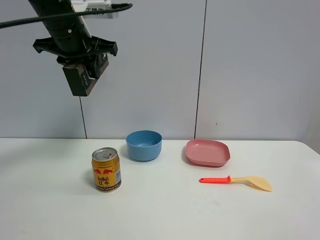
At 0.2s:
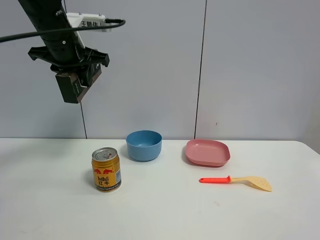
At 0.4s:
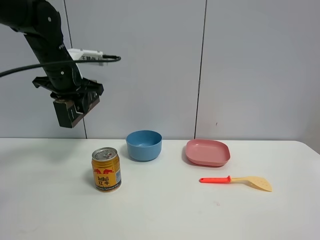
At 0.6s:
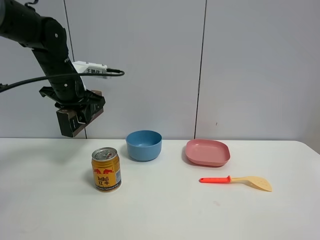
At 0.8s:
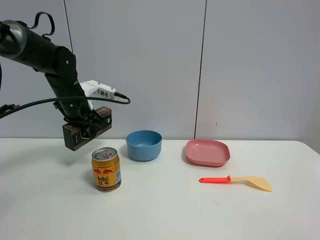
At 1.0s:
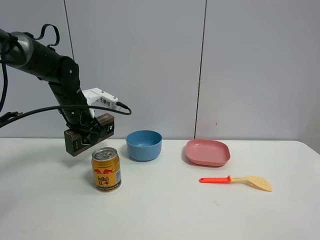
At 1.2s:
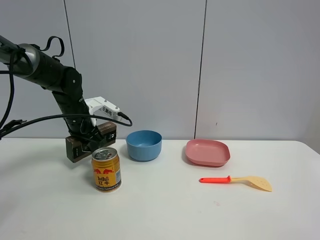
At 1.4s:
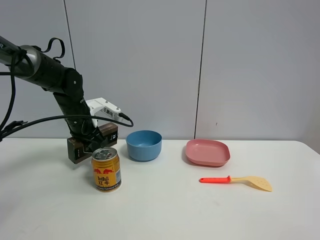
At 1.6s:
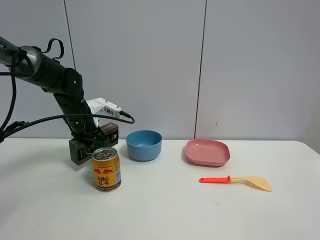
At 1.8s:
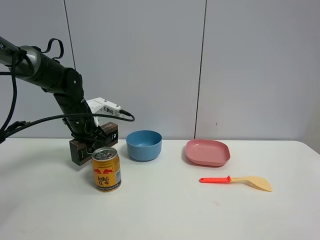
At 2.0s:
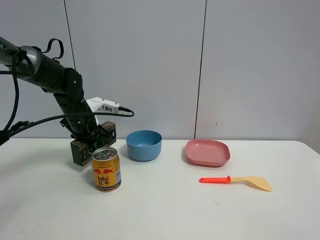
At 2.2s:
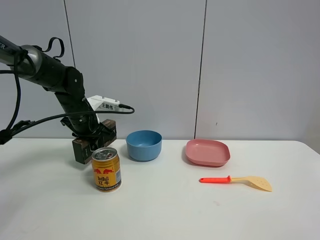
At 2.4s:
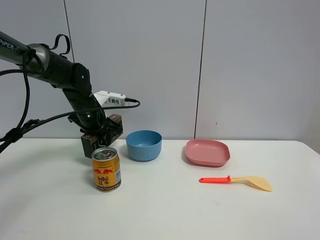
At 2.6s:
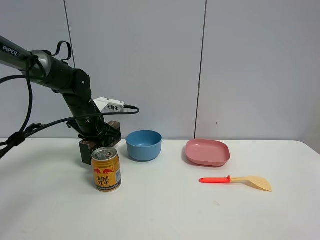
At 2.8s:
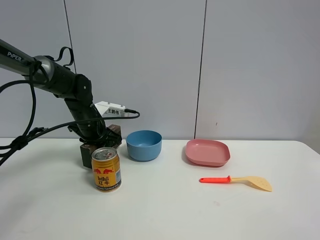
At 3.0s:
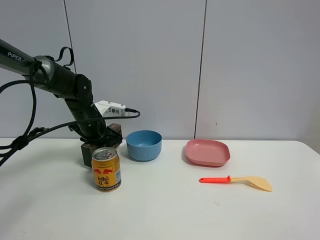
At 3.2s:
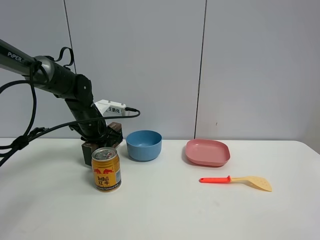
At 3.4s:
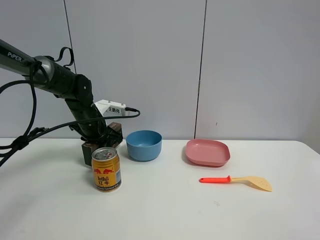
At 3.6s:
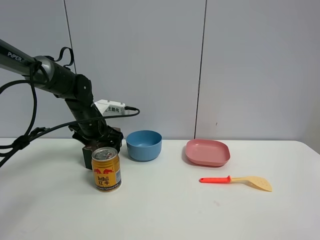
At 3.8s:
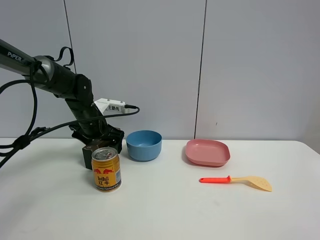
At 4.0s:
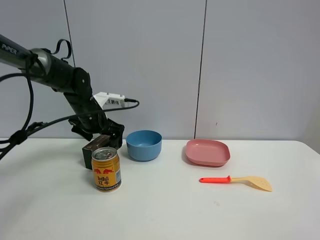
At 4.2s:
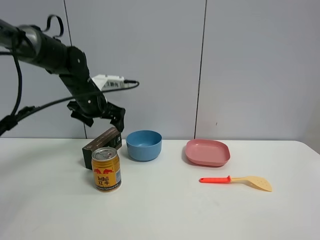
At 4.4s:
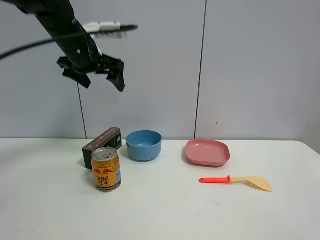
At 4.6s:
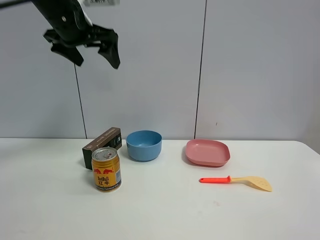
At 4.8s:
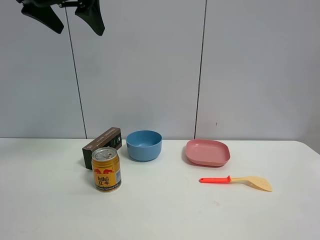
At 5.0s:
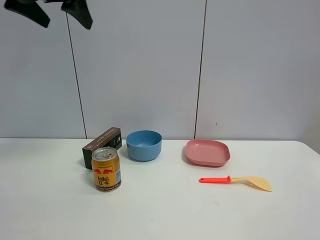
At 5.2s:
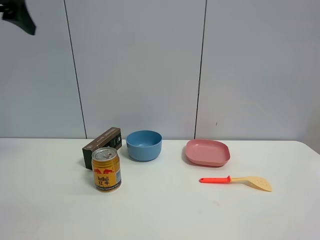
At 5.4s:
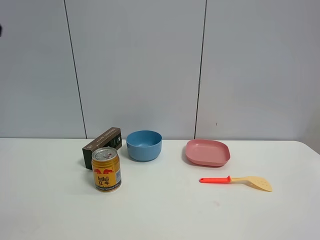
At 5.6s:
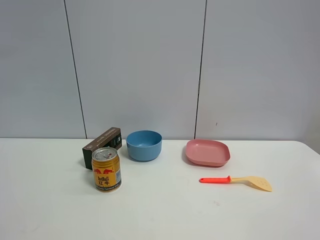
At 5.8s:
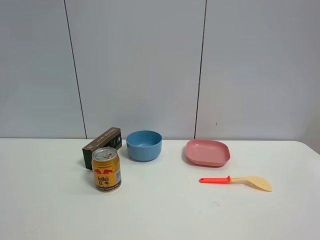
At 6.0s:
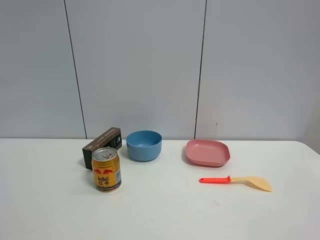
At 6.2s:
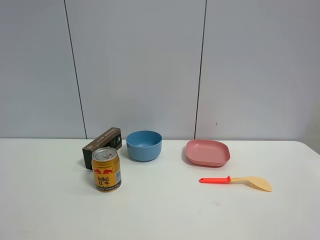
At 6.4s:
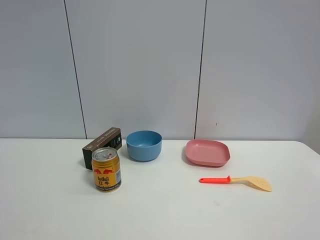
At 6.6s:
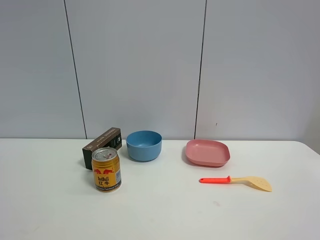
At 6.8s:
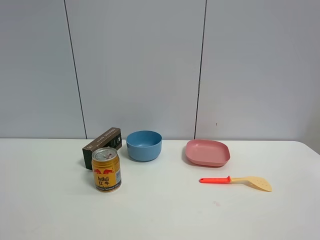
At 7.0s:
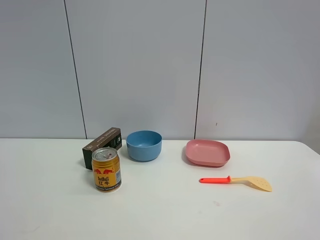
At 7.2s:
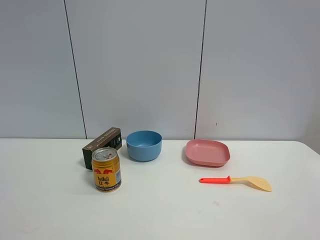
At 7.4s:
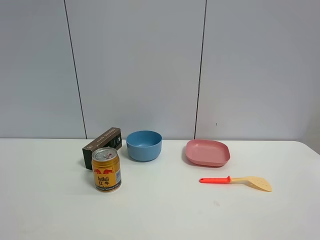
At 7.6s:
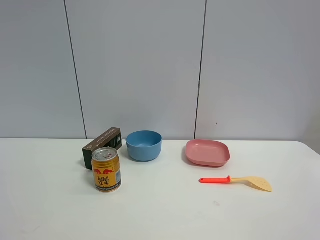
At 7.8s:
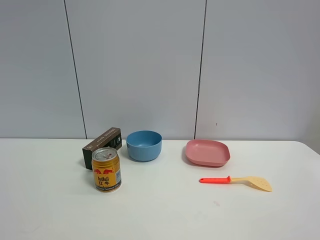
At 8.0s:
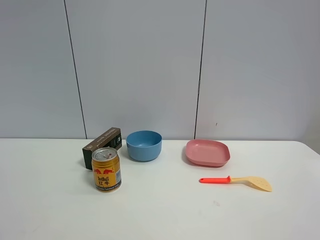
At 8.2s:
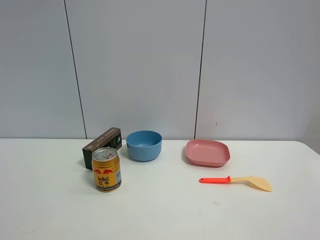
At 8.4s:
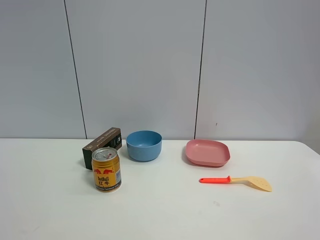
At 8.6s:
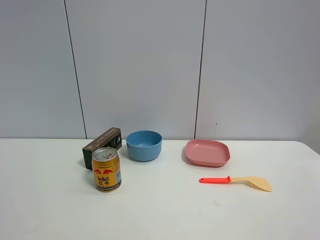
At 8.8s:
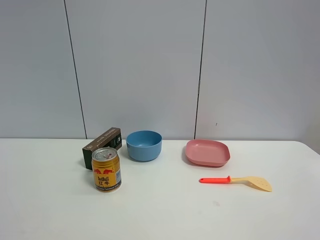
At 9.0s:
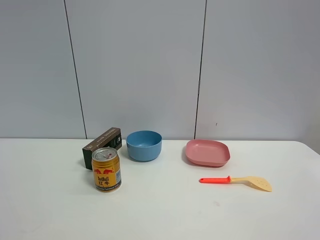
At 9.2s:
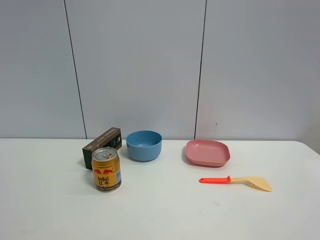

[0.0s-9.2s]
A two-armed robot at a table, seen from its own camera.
Task of the whole recording: the gripper move the object.
Step, 0.0s to 3.8s: Place the Luckin Coffee box on the table with the left gripper.
0.0s to 1.6s: The left gripper shifts approximately 20 cm downward.
1.6s to 3.0s: The grippers move only a little.
3.0s to 4.6s: The left gripper shifts roughly 25 cm upward, and opens its fingers.
4.6s to 6.2s: The left gripper heads backward and to the left, covering roughly 35 cm.
7.6s to 9.2s: Both grippers stay about where they are.

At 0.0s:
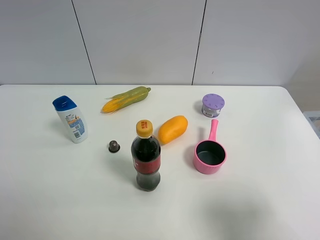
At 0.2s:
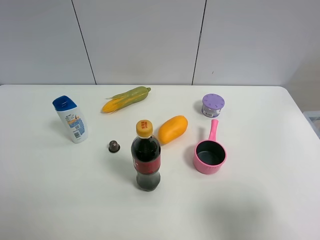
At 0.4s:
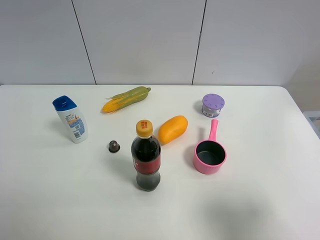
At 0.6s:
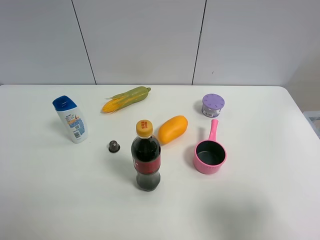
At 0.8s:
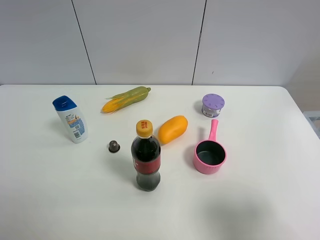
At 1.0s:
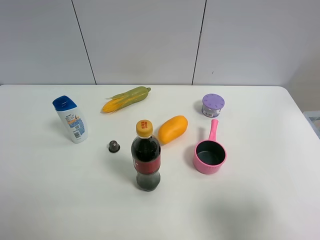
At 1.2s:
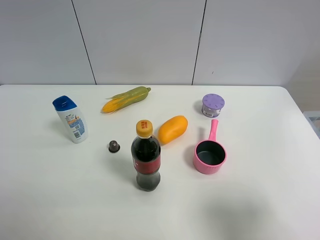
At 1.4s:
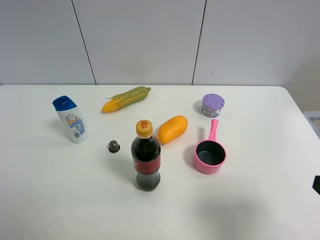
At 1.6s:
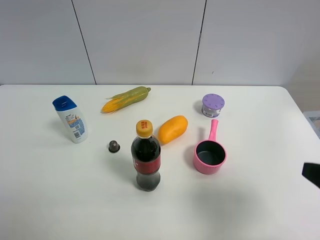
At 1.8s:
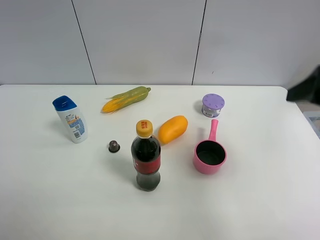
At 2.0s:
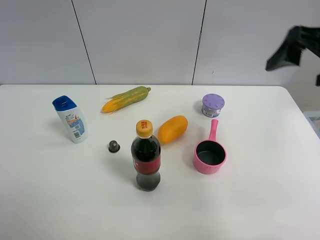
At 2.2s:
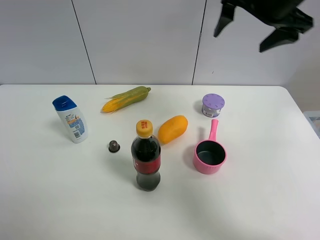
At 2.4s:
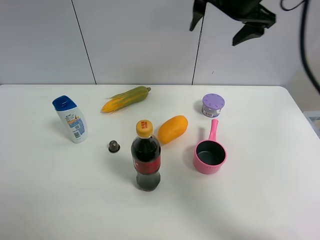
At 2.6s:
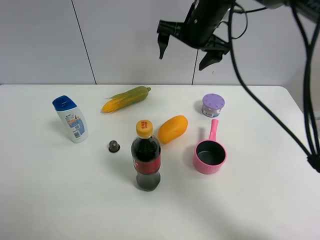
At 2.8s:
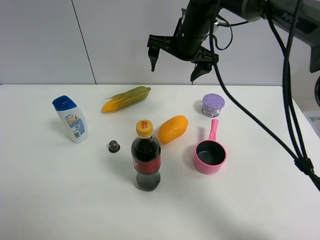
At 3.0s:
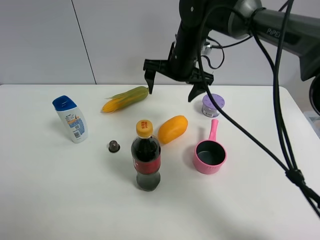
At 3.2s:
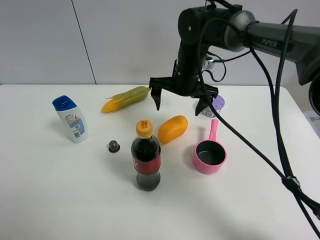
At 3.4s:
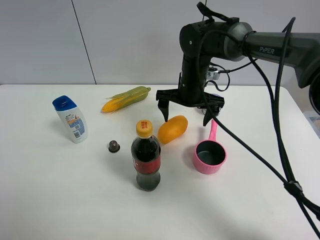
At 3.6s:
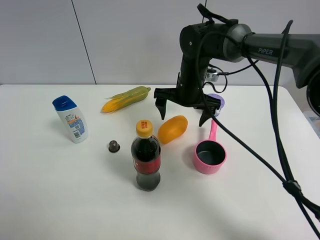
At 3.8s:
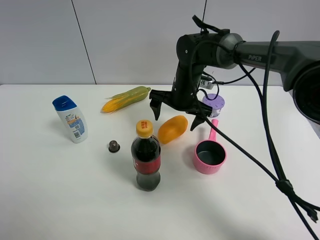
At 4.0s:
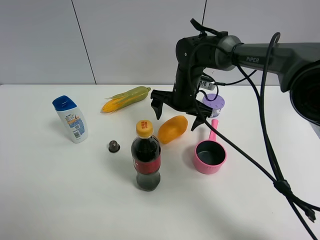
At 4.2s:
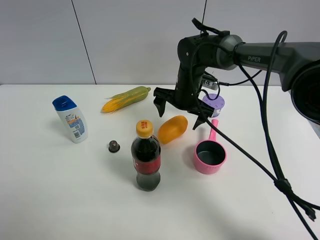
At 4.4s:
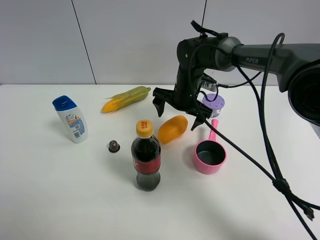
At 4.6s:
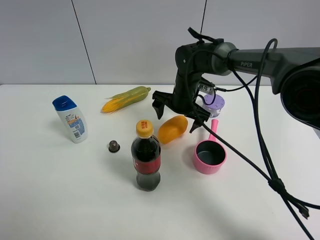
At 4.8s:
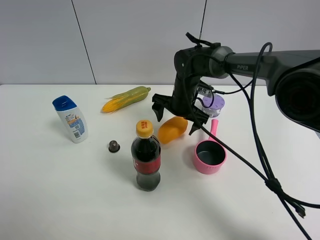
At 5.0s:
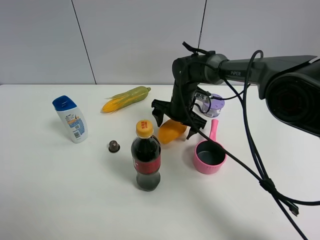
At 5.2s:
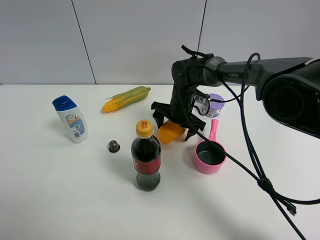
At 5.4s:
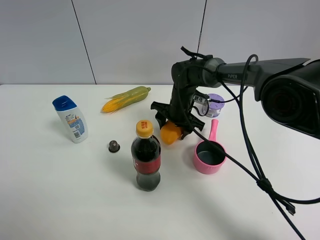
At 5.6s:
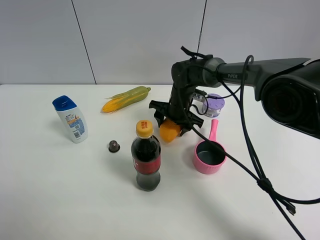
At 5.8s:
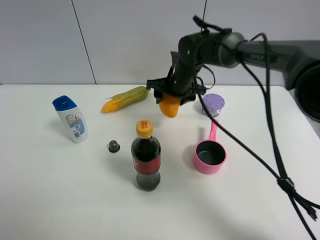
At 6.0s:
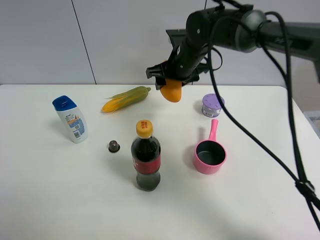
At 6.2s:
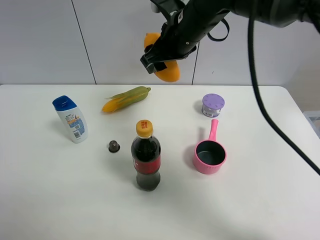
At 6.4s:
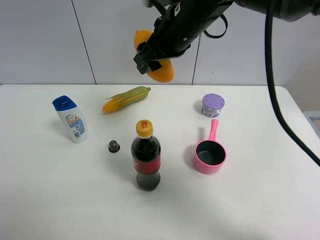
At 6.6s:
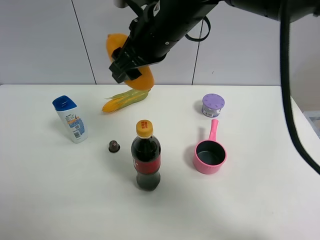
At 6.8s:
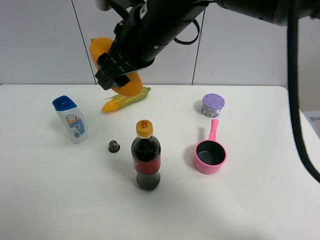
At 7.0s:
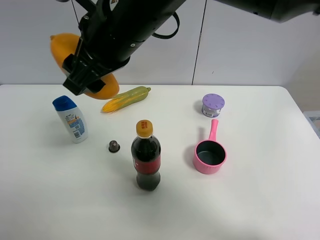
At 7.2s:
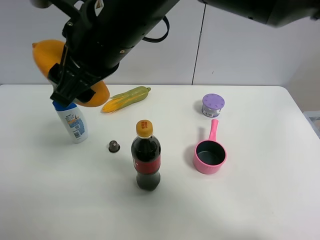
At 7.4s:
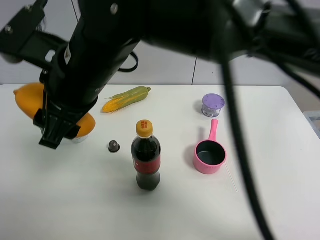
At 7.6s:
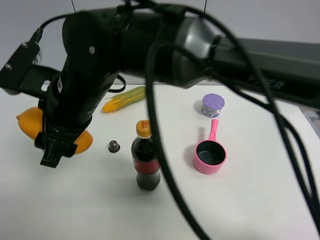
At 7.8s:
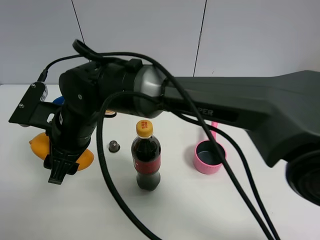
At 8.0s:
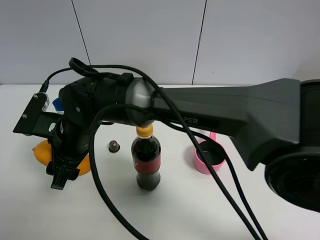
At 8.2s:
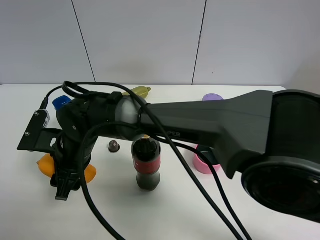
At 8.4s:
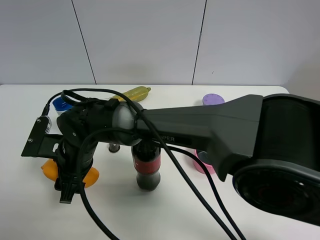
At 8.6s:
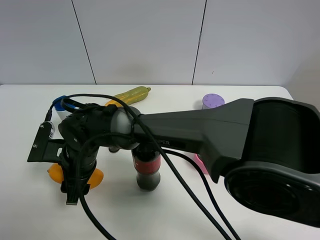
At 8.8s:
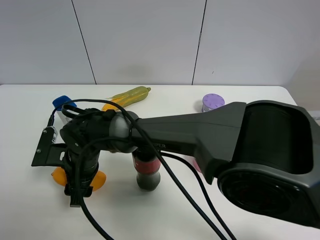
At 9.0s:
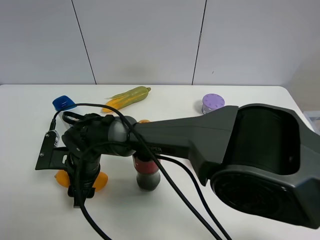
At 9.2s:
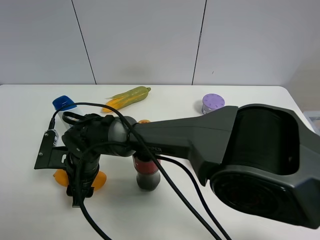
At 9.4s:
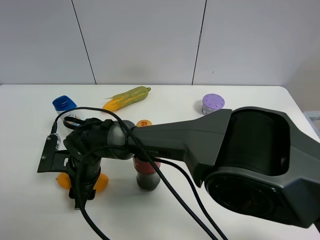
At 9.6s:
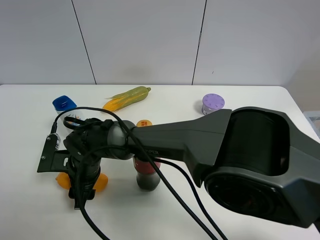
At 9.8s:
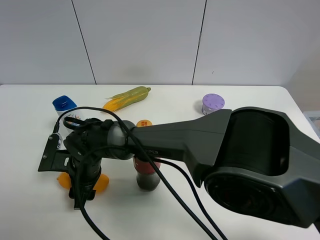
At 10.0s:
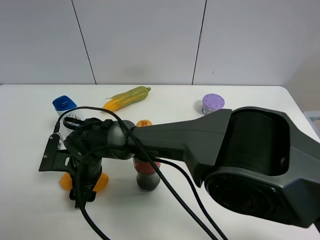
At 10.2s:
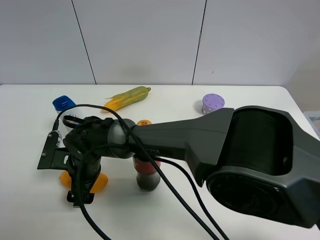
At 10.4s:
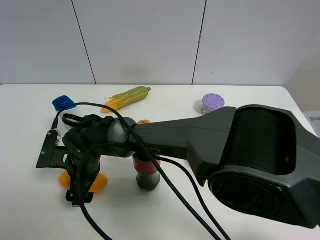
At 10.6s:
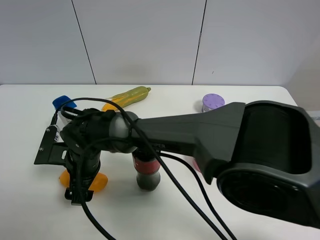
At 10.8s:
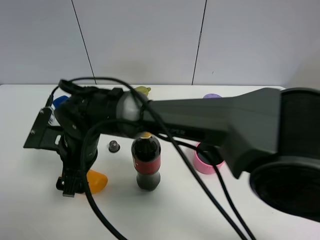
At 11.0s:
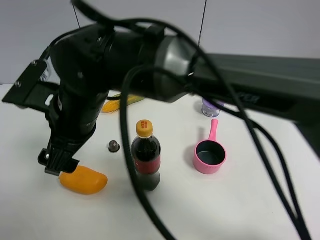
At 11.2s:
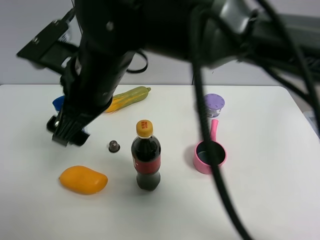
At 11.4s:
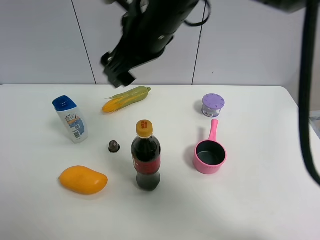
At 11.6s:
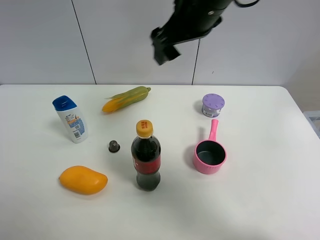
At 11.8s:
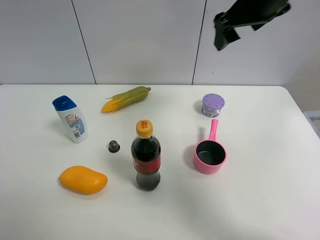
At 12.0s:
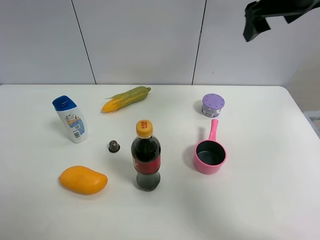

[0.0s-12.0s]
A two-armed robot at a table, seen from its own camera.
Task of the whole recording: the gripper move the object.
Step, 0.0s to 5.2s: Grasp the mango with the right gripper.
Step, 5.4s to 10.4s: Place the mango on the table with the right gripper.
0.0s to 1.6s: The right gripper is displaced forward by roughly 5 cm.
1.6s to 3.0s: The right gripper travels forward and to the left by about 40 cm.
3.0s to 4.4s: The right gripper moves downward, some 10 cm.
4.4s to 6.0s: The right gripper shifts approximately 10 cm upward, and closes.
6.0s to 7.6s: The right gripper goes some 25 cm backward and to the left.
7.6s to 9.0s: The right gripper heads downward, covering some 15 cm.
9.0s to 10.4s: The right gripper opens.
10.4s to 12.0s: The right gripper moves to the right and upward, some 50 cm.

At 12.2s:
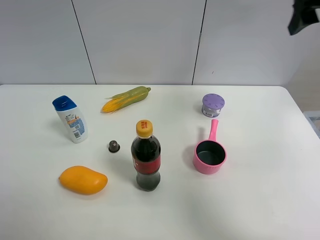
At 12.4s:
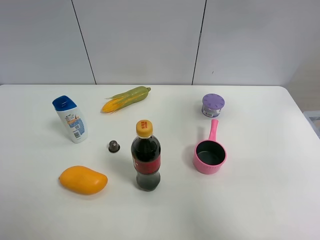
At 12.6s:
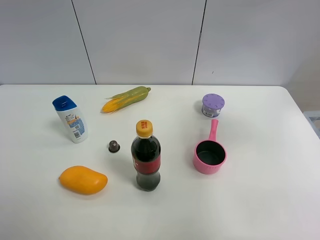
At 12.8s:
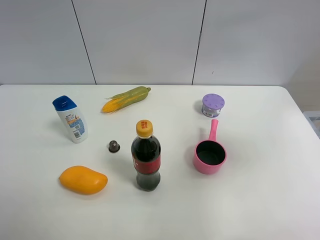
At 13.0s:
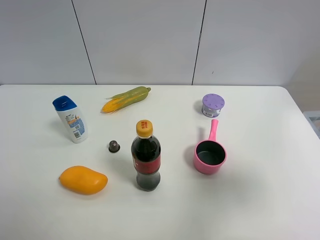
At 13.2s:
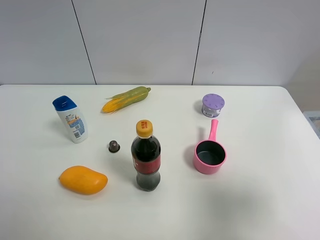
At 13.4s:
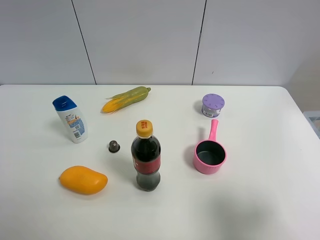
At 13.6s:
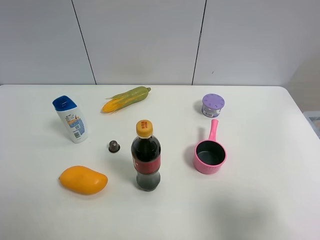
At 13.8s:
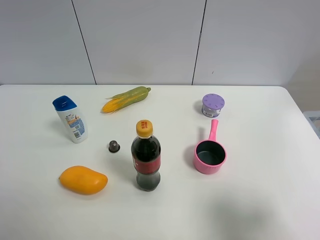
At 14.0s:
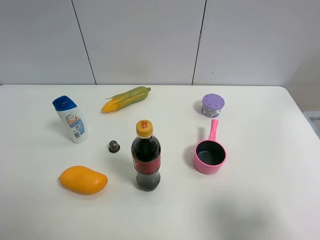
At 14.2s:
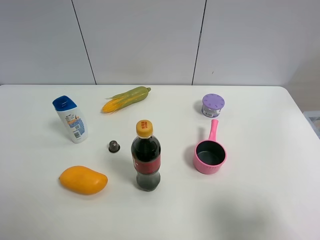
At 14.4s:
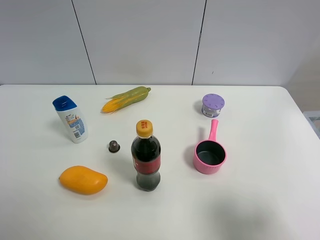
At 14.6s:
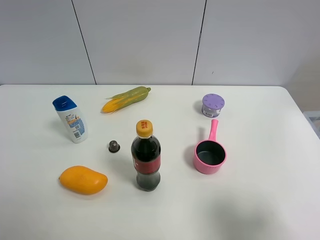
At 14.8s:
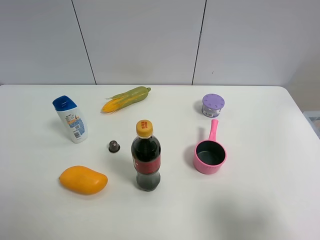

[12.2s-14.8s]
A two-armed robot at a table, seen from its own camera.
Task of the whole recording: the gripper move the object.
12.2s to 13.4s: The right gripper moves backward and downward, some 35 cm.
13.4s to 14.8s: Both grippers stay put.
